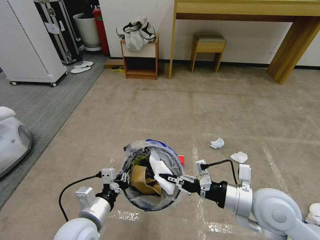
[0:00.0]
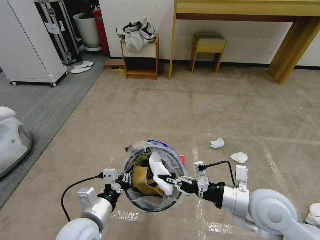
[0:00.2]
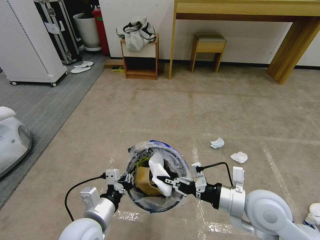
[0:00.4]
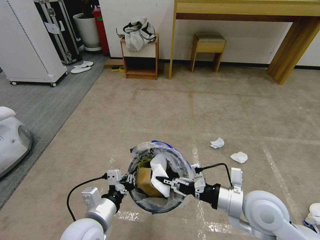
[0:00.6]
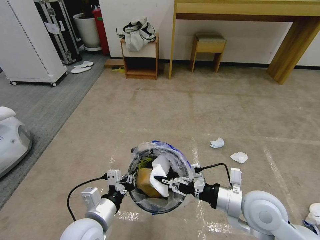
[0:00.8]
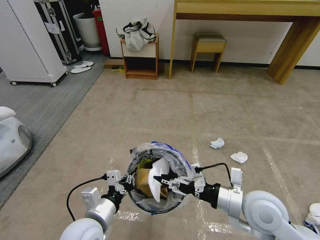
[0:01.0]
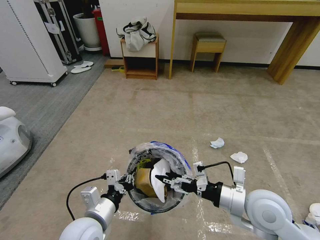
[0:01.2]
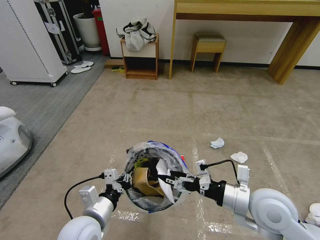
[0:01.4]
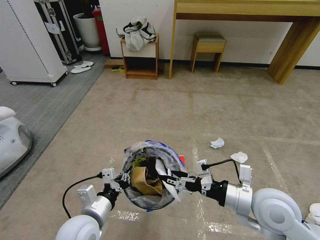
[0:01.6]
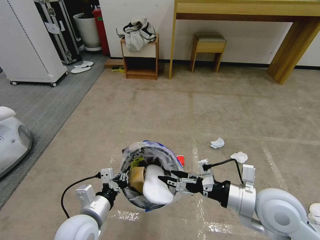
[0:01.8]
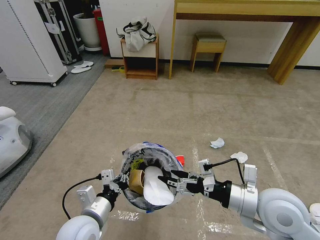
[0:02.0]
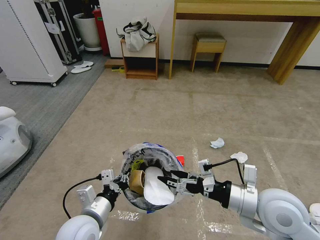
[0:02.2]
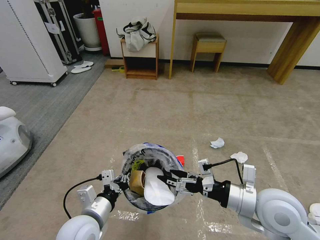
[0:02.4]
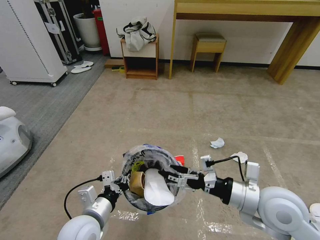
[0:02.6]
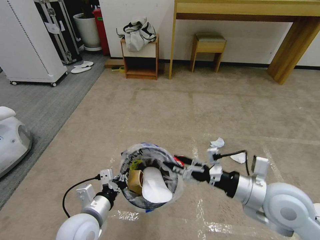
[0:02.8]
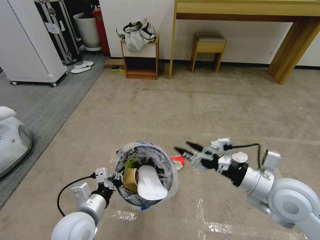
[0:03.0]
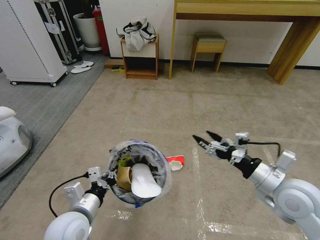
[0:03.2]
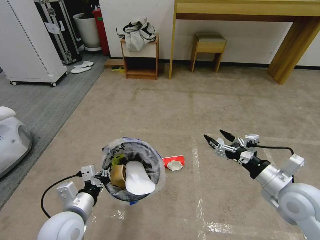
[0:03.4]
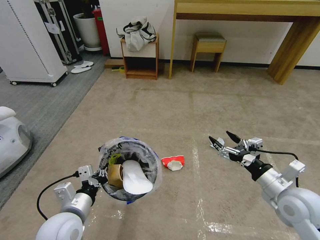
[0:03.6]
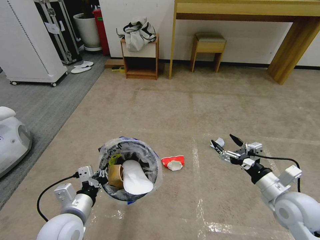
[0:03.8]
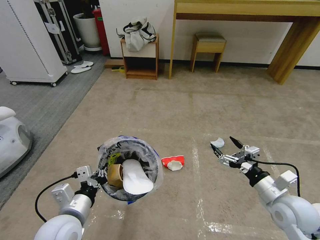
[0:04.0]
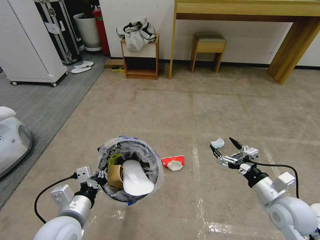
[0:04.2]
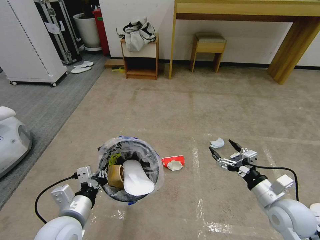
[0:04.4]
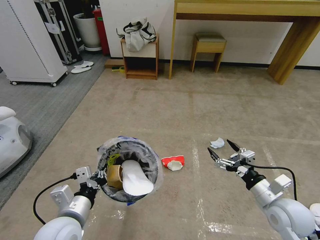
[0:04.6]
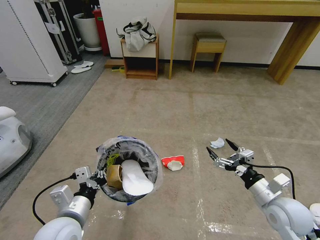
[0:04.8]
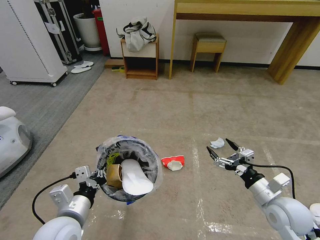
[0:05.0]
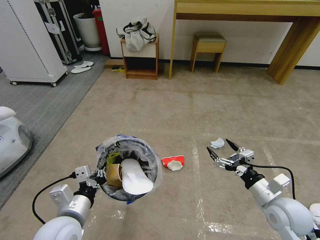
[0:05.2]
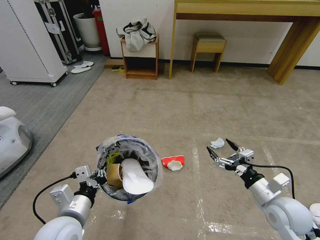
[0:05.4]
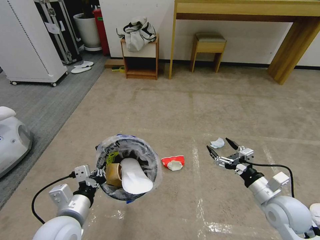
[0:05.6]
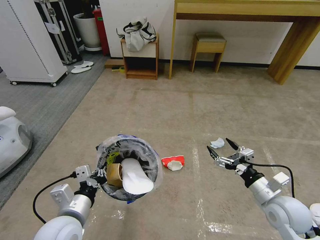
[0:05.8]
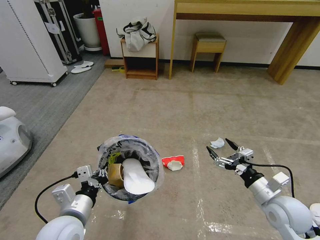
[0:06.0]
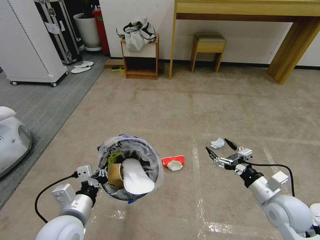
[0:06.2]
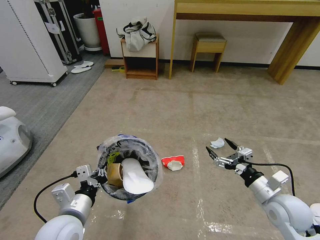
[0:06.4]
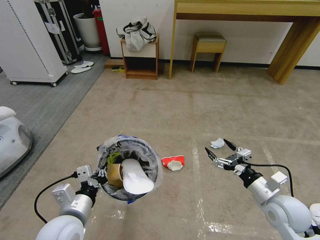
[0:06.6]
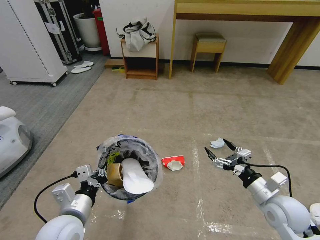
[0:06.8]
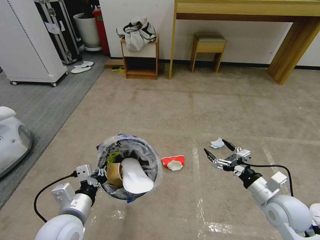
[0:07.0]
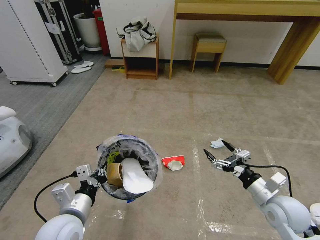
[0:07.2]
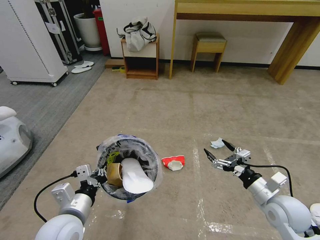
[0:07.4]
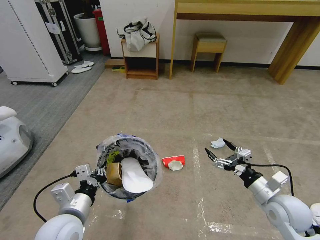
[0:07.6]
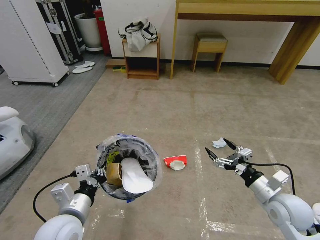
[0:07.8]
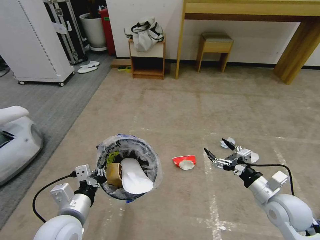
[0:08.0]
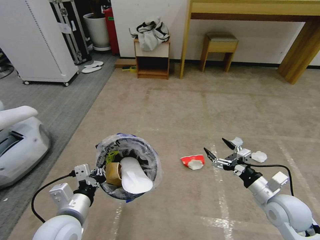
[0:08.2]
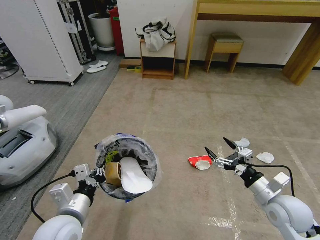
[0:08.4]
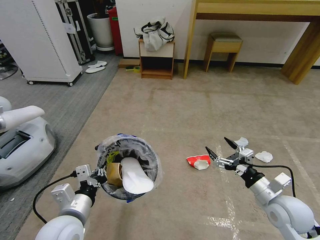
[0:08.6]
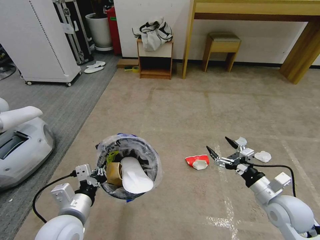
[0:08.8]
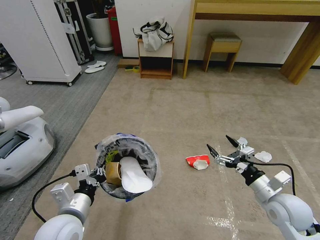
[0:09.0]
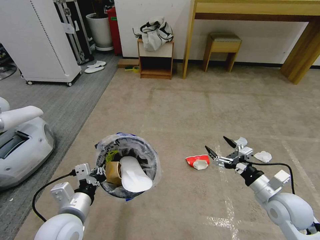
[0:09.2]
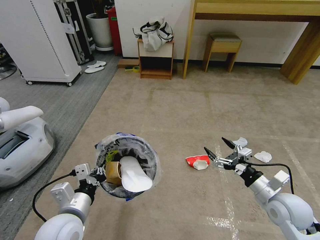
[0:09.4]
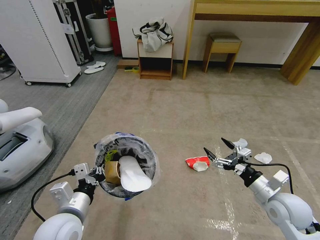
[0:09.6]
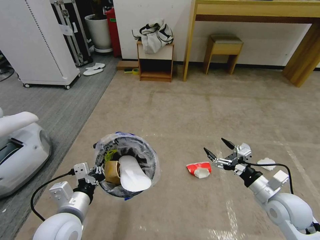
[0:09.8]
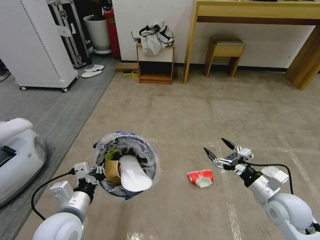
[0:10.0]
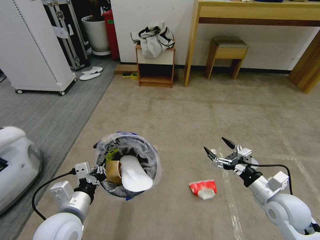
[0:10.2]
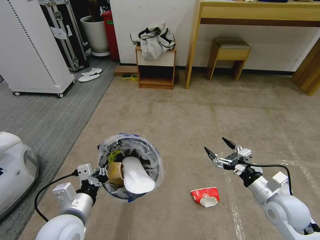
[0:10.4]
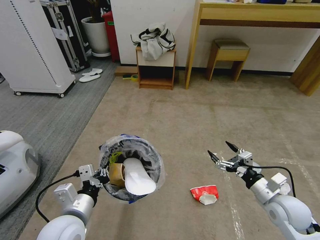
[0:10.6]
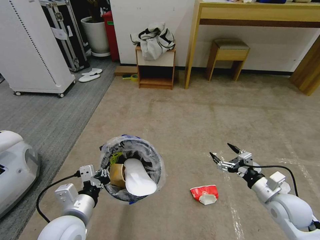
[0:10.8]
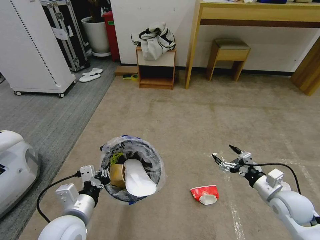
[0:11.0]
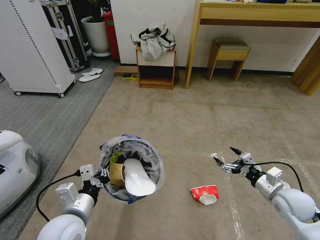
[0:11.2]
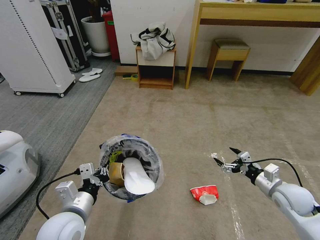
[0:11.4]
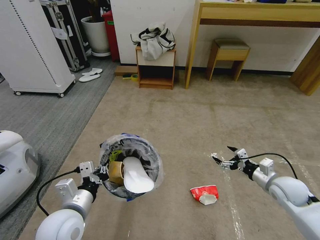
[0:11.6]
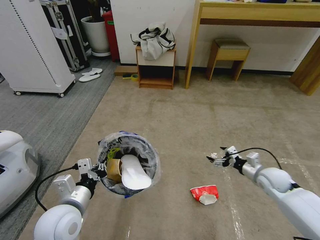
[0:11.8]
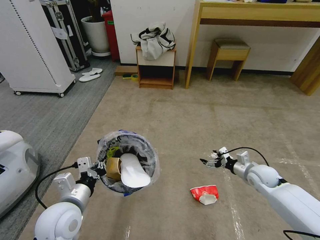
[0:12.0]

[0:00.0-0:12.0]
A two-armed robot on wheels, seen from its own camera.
Task of the whole recording: Pick up the trash bin and place the garbage on the floor into it.
0:00.0 to 0:01.6: The right gripper opens up.
0:01.6 to 0:03.0: There are only small adjustments of the grippers.
0:03.0 to 0:04.4: The right gripper moves downward and to the right, some 15 cm.
0:04.4 to 0:07.6: Both grippers stay about where they are.
0:10.4 to 0:12.0: The right gripper travels forward and downward by some 15 cm.

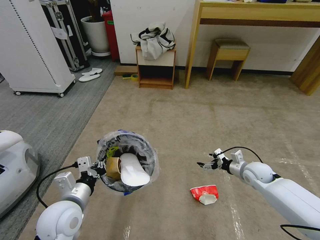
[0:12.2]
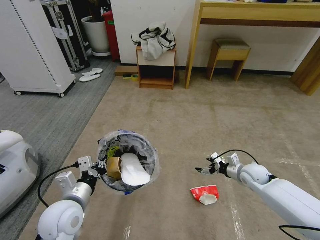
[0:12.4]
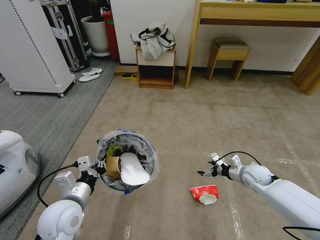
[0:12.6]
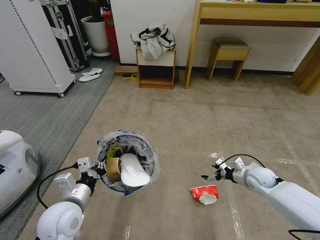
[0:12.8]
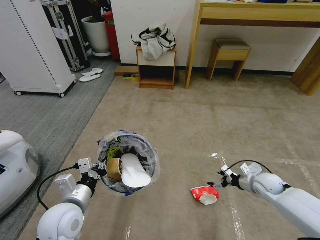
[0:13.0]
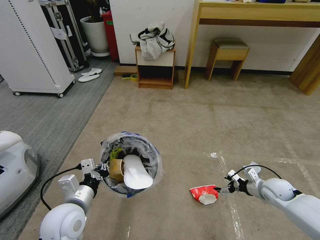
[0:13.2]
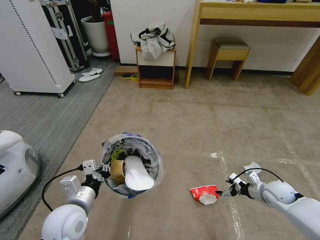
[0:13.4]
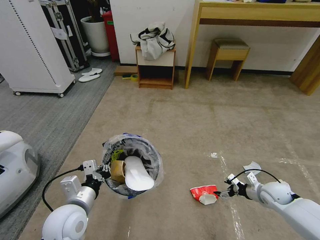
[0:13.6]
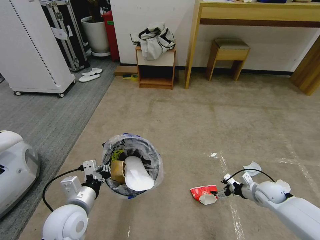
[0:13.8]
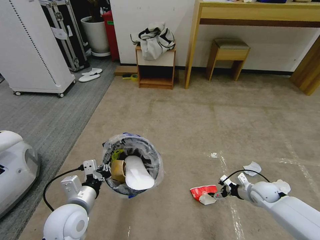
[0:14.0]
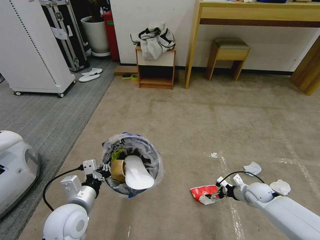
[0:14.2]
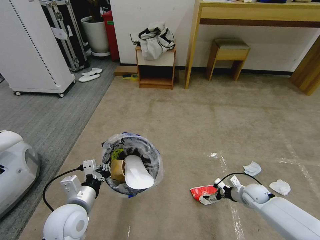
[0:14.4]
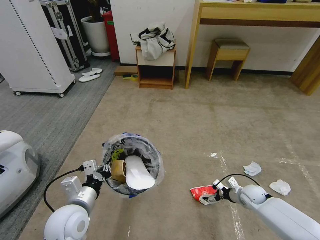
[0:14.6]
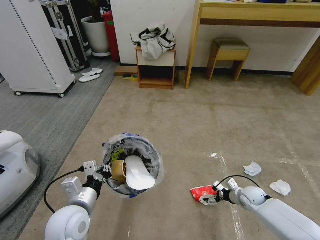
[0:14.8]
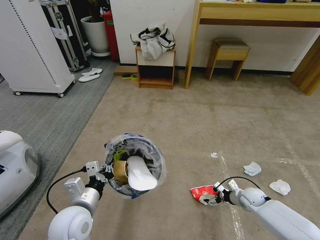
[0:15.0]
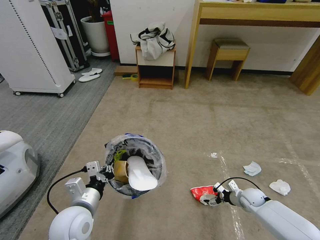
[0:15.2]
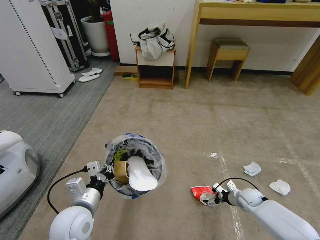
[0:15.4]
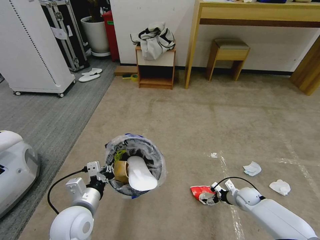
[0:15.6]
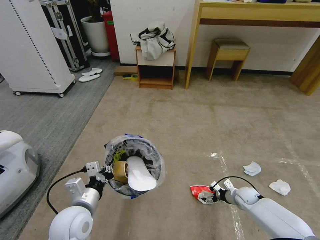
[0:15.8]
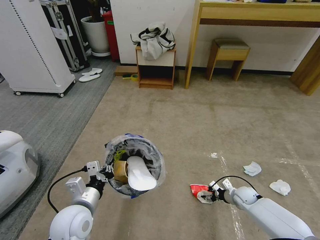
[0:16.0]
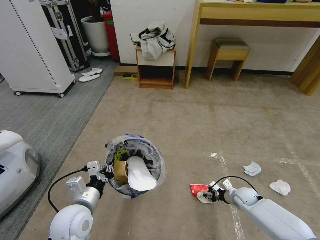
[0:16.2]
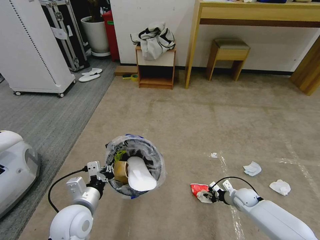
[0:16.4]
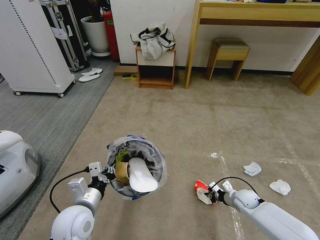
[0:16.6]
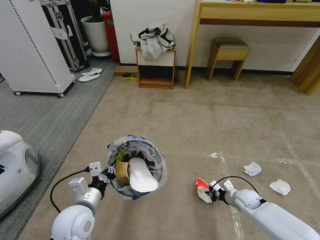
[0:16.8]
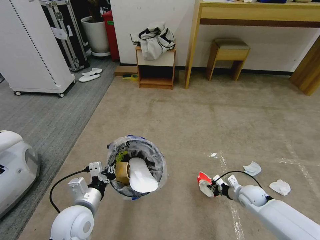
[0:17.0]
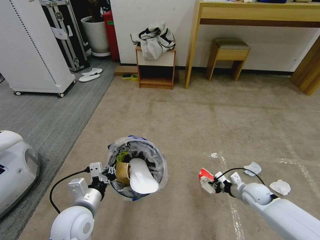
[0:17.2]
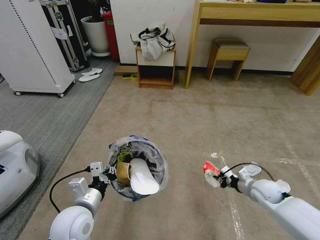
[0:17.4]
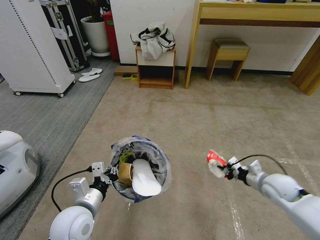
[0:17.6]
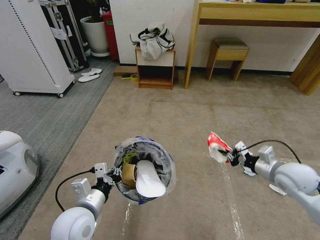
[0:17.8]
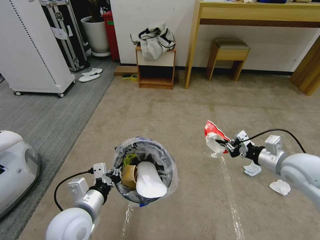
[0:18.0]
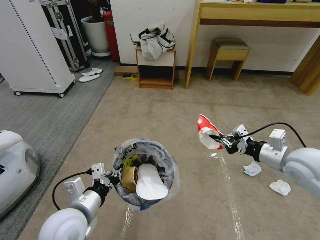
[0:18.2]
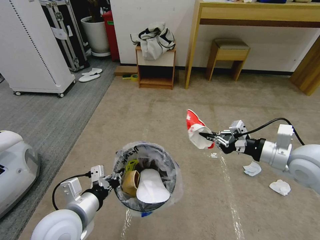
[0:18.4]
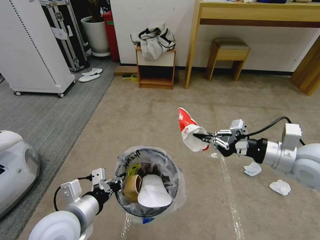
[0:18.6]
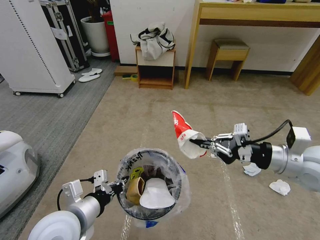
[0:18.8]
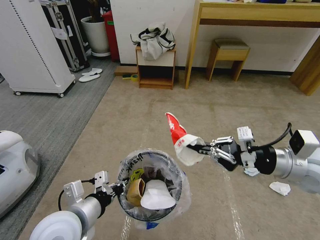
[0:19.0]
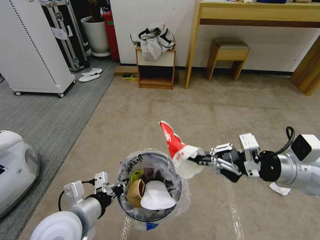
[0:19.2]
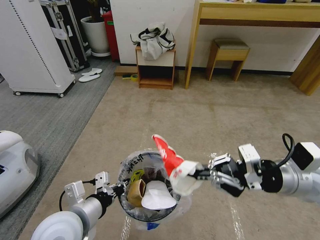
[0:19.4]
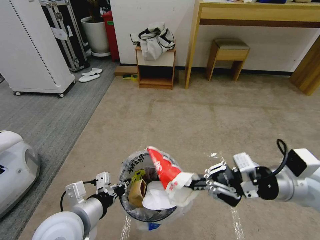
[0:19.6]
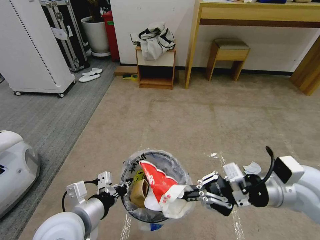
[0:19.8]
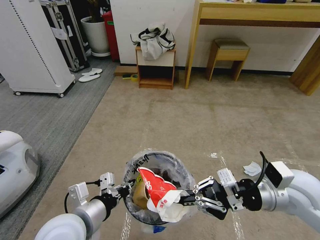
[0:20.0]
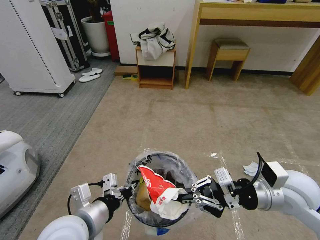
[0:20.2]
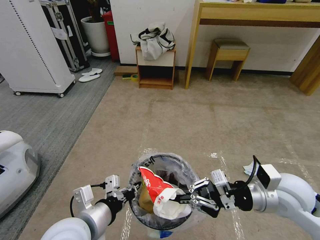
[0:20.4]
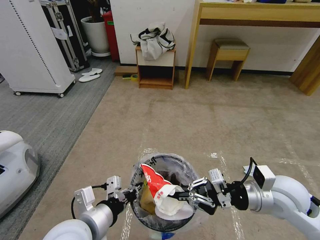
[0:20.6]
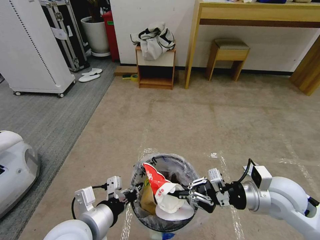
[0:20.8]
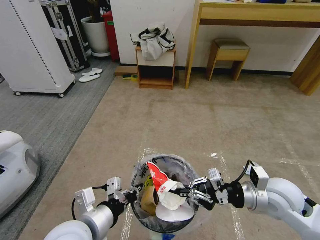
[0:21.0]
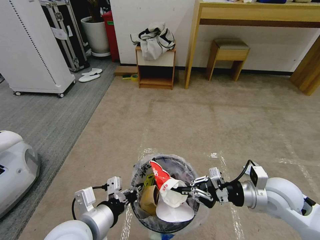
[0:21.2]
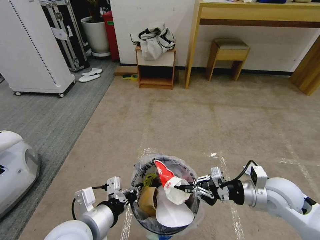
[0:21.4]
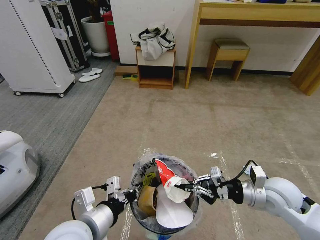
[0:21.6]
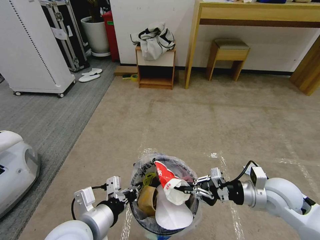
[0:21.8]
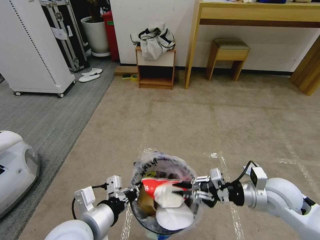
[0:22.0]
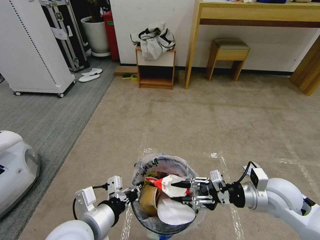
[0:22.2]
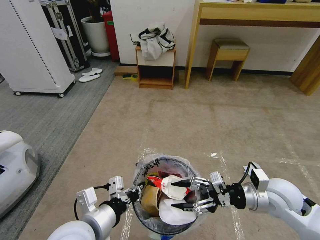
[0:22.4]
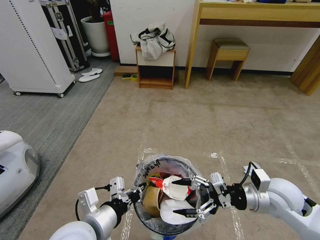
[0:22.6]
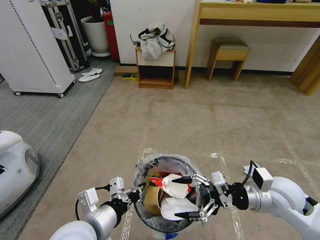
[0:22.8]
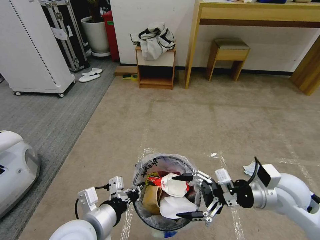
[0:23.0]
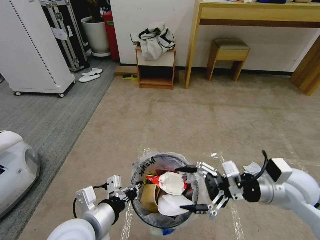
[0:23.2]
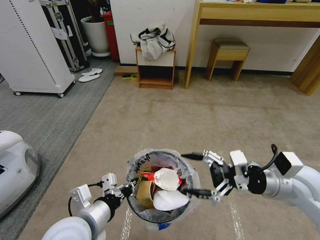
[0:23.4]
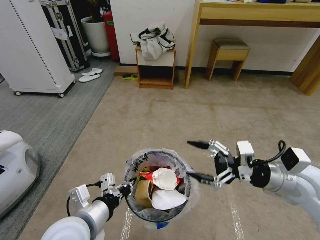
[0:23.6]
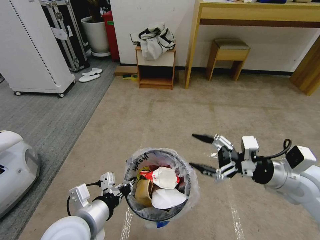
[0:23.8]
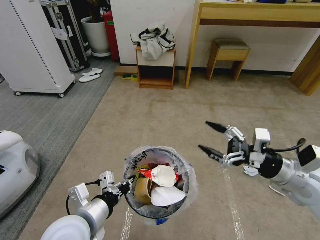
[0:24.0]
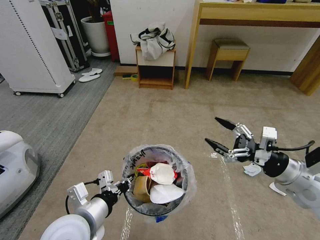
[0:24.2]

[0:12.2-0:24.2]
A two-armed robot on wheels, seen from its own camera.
Task of the whole recording: Pick up the trash bin and place the garbage on the floor into it.
0:12.2 to 0:13.8: The right gripper moves downward and backward, approximately 10 cm.
0:13.8 to 0:15.2: The right gripper is displaced downward by about 10 cm.
0:15.2 to 0:16.6: The right gripper closes.
0:16.6 to 0:18.2: The right gripper moves upward, about 35 cm. The left gripper moves upward, about 5 cm.
0:18.2 to 0:19.8: The right gripper moves to the left and backward, approximately 10 cm.
0:19.8 to 0:21.2: The right gripper is displaced downward by approximately 10 cm.
0:21.2 to 0:22.6: The right gripper opens.
0:22.6 to 0:24.2: The right gripper shifts about 10 cm upward and to the right.
